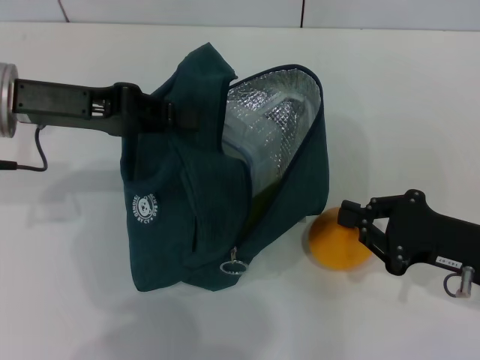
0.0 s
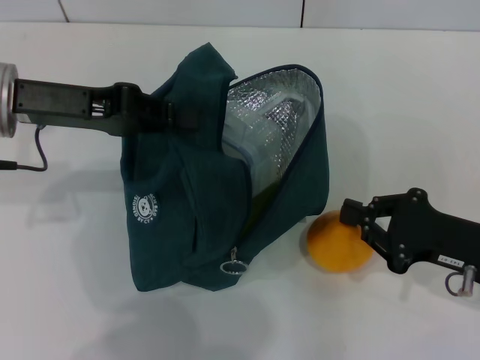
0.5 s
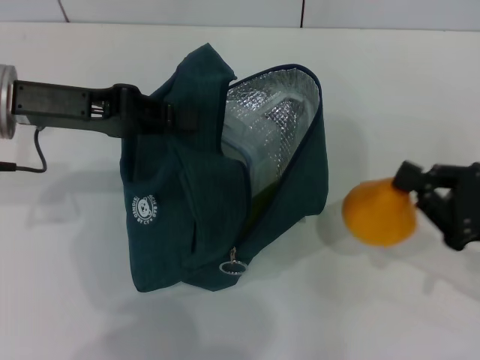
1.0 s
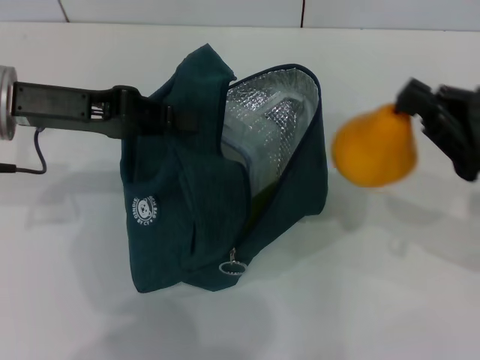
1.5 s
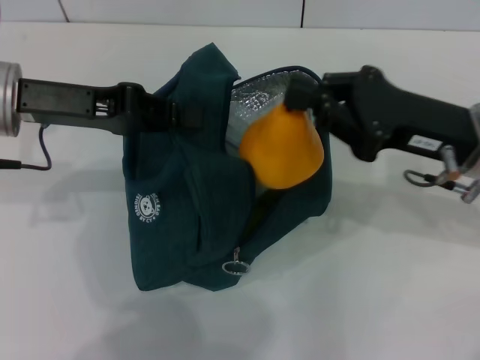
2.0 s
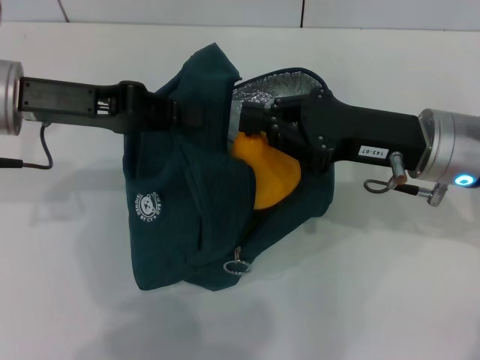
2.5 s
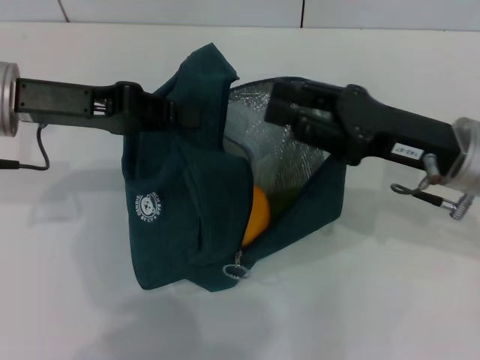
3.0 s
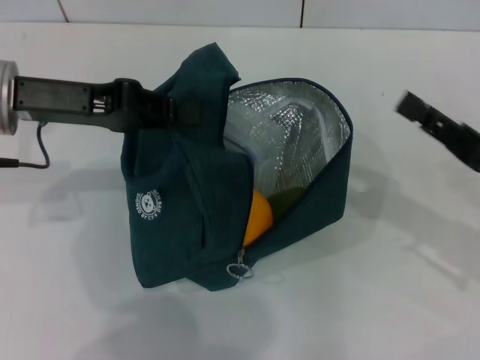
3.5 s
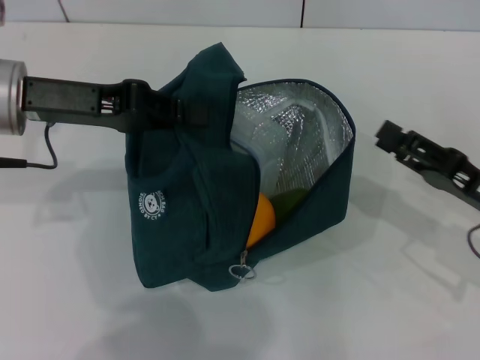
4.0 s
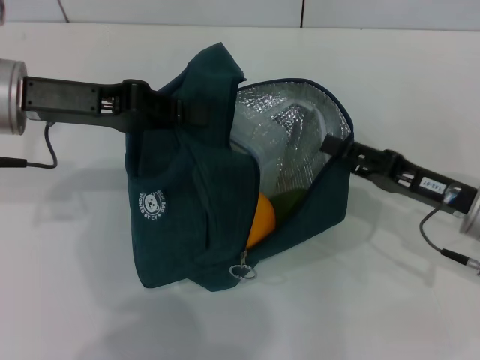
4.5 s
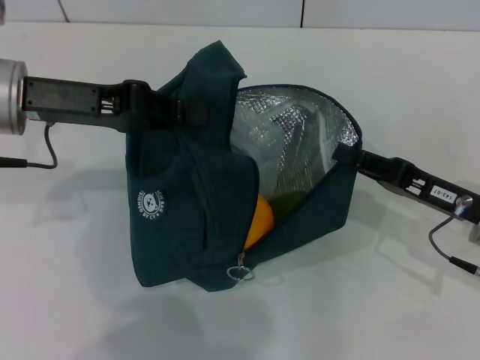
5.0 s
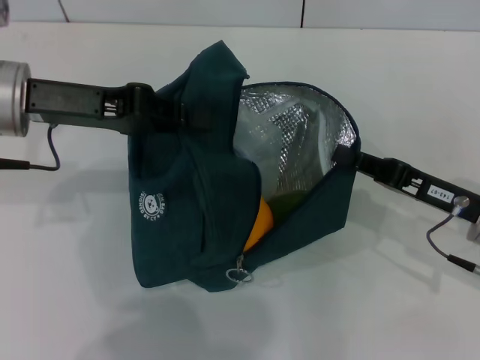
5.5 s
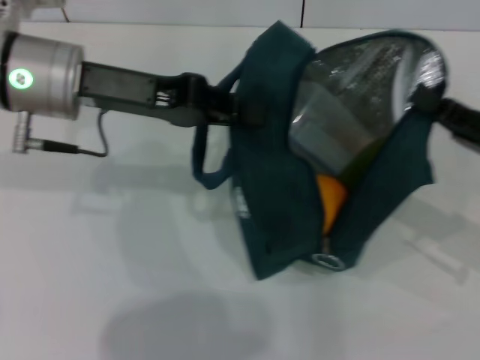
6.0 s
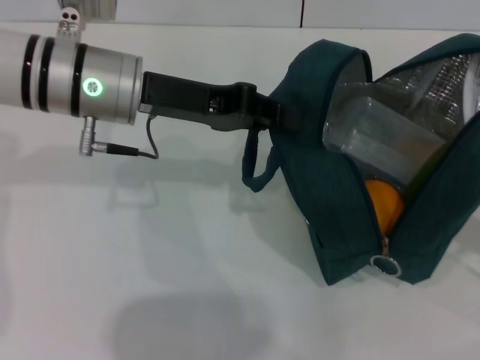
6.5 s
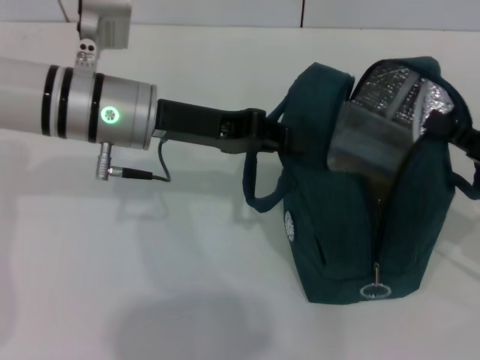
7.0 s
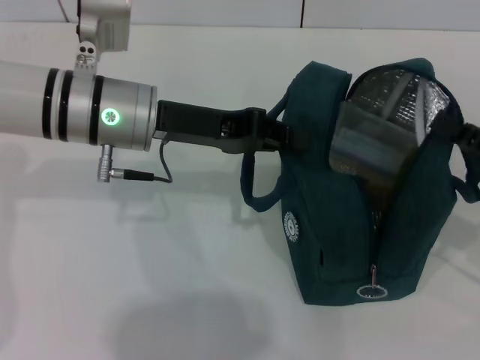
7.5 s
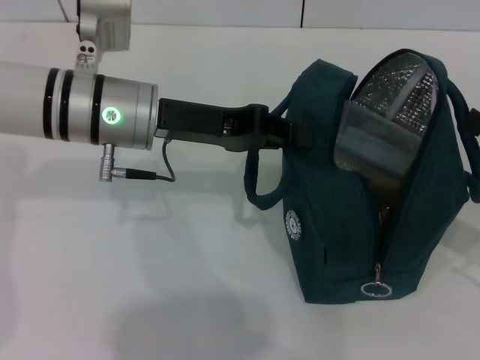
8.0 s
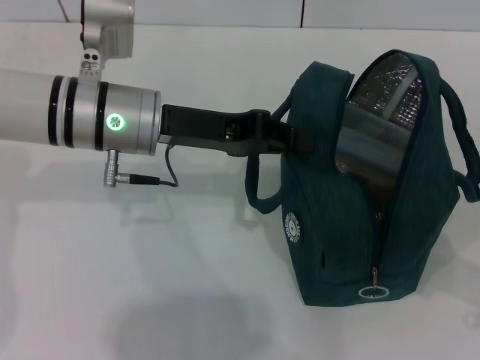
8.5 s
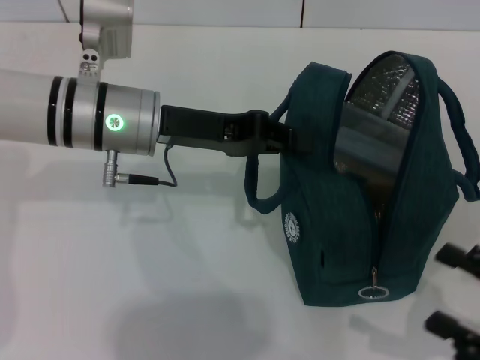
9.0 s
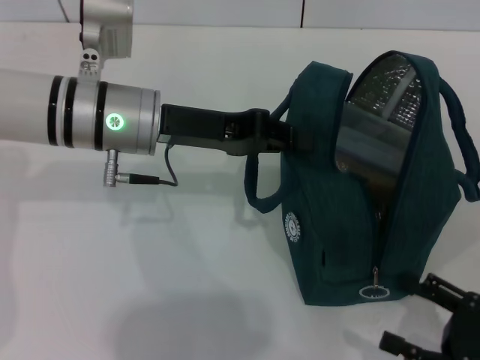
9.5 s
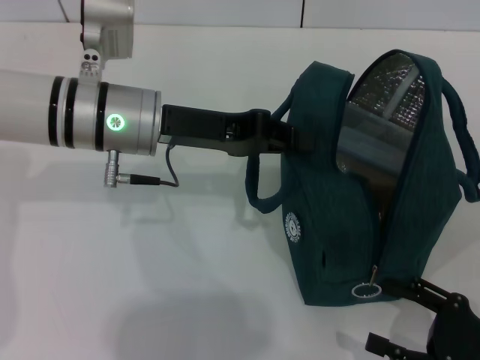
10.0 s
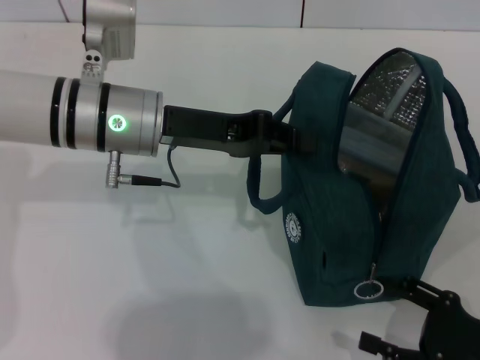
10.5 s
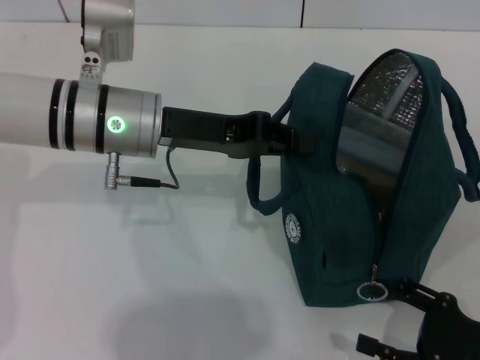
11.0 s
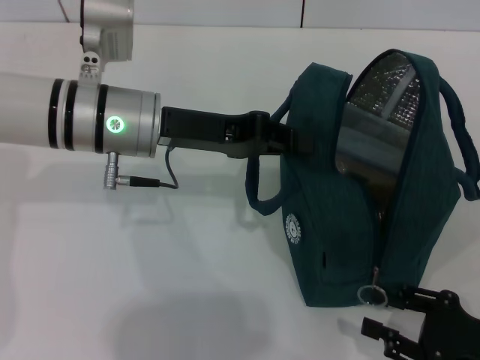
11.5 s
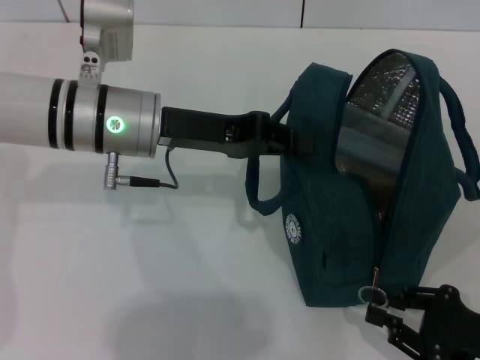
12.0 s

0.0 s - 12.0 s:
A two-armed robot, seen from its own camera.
Step, 3.5 s - 7.5 s: Hold the lunch bag with your right hand.
0.0 s - 2.0 s: The right gripper moves upward, forward and to the left, some 10 cm.
2.0 s - 4.0 s: The right gripper moves downward and to the right, about 10 cm, and opens.
4.0 s - 6.0 s: The right gripper closes up.
6.0 s - 8.0 s: The right gripper ends up roughly 5 cm from where it was, and opens up. The left gripper changes place by about 5 cm.
8.0 s - 10.0 s: The right gripper heads downward and backward, covering roughly 10 cm, and opens its fingers.
10.0 s - 12.0 s: The right gripper closes up.

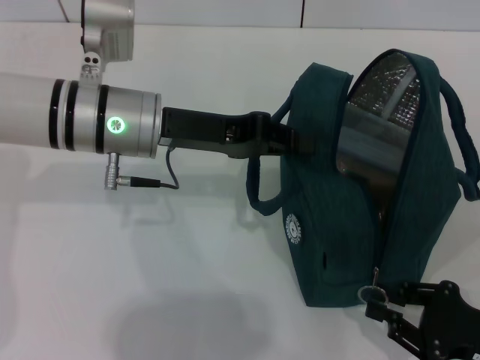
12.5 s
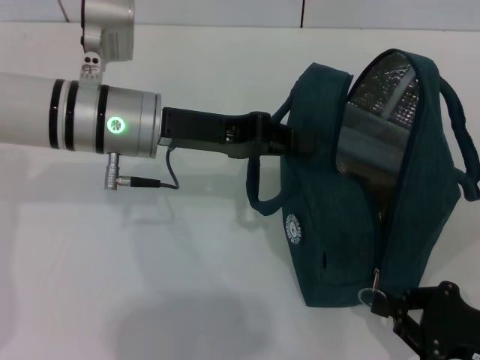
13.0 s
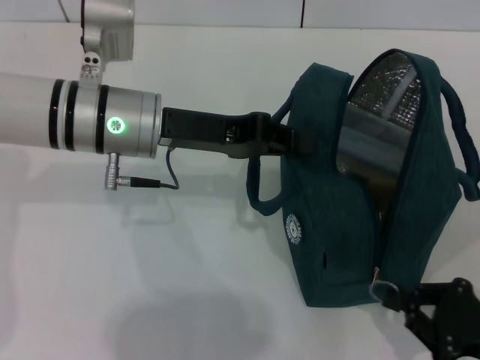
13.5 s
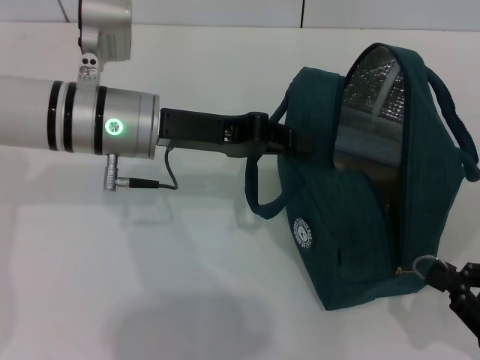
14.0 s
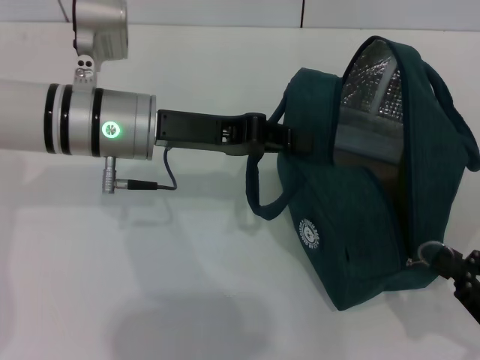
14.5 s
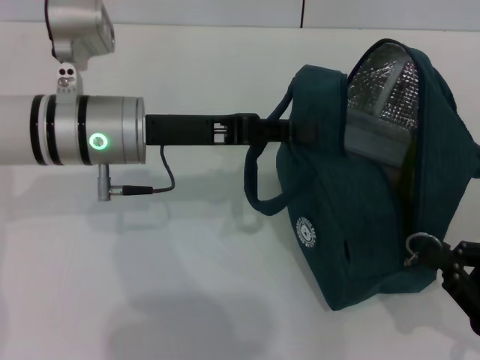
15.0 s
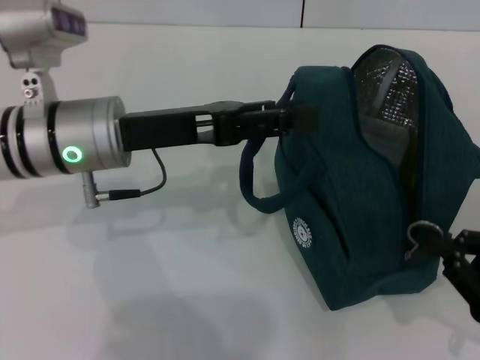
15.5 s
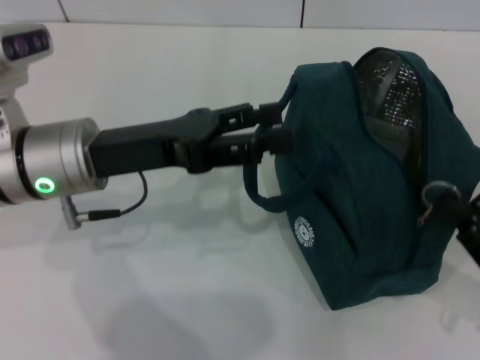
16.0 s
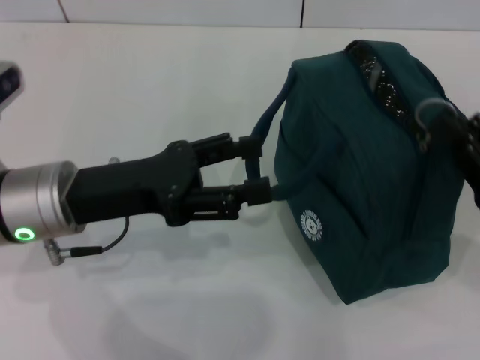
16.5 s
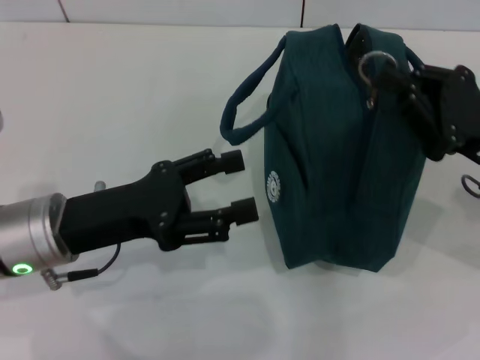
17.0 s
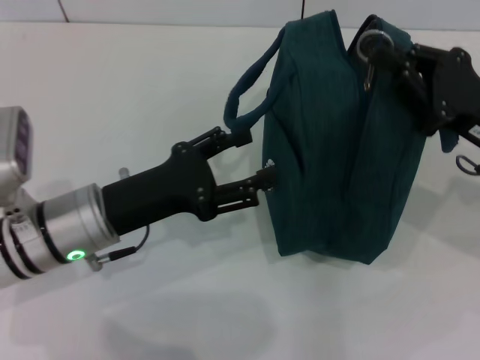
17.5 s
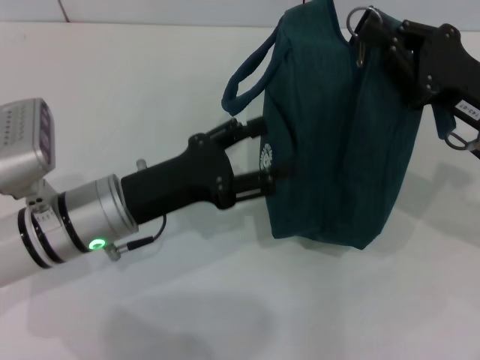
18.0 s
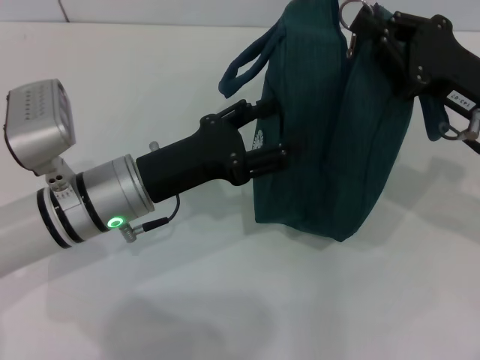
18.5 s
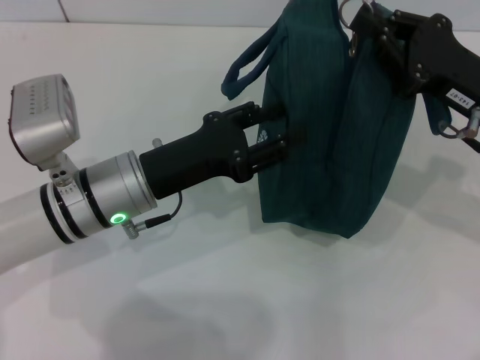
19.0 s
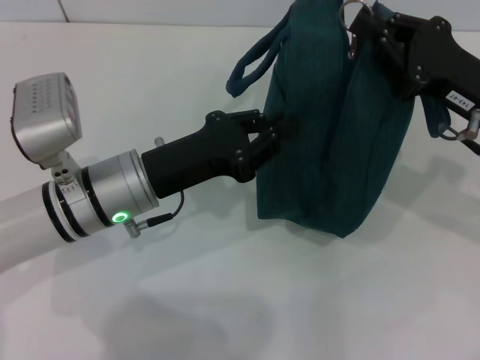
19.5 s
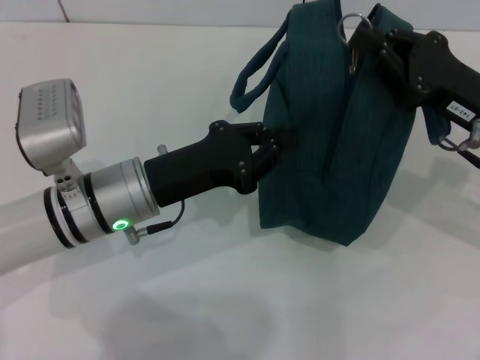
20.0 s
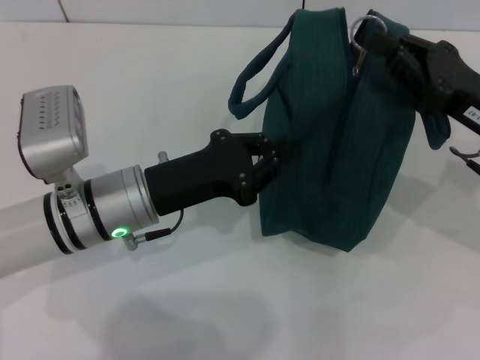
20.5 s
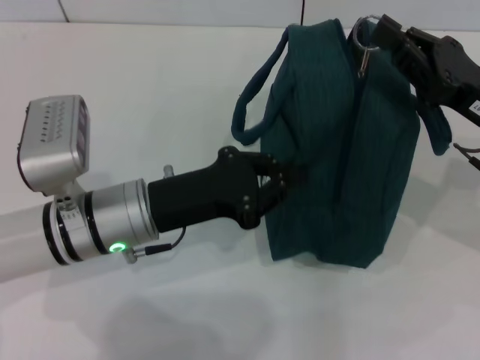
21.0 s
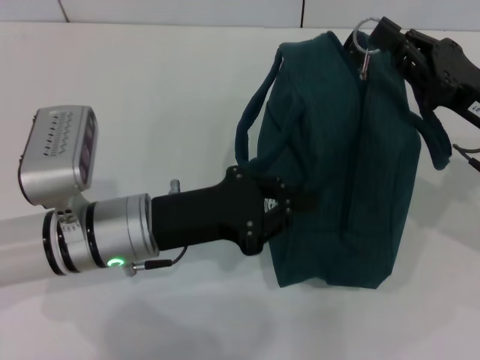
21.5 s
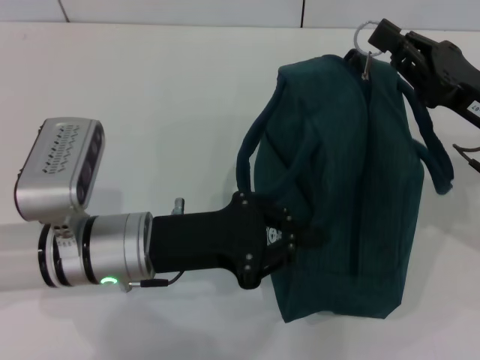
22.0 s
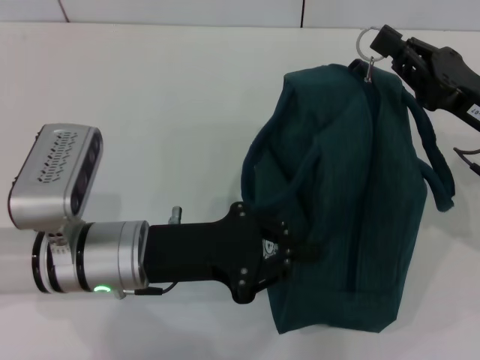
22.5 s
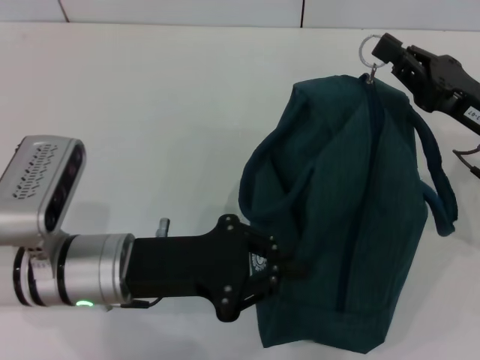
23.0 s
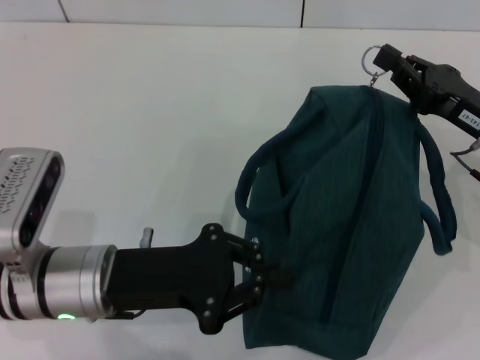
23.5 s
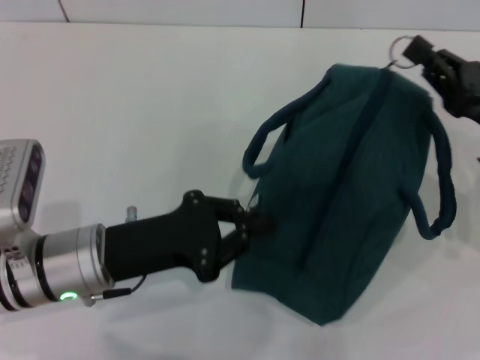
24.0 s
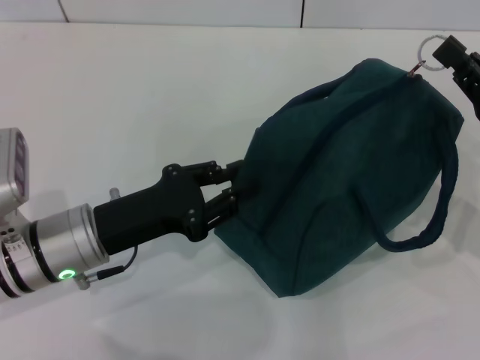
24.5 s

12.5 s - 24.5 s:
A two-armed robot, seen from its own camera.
Step, 12.5 s - 15.5 s: Hold the lunch bag with your left hand.
12.5 s - 14.5 s: The grippers move only a little.
14.5 s - 16.5 s: The left gripper travels backward and to the left by about 10 cm, and opens, while the right gripper goes some 10 cm forward and upward.
16.5 s - 18.5 s: The left gripper changes place by about 5 cm. Meanwhile the right gripper shifts about 10 cm forward and to the left.
18.5 s - 20.5 s: The left gripper closes its fingers.

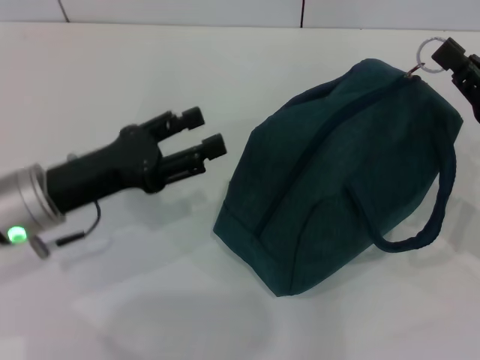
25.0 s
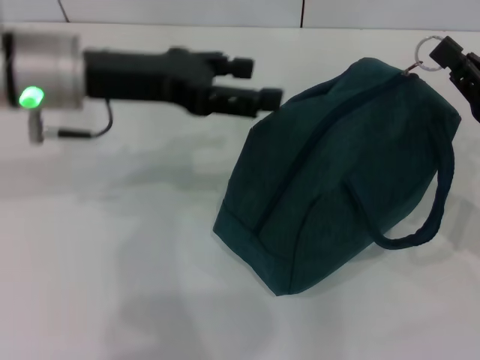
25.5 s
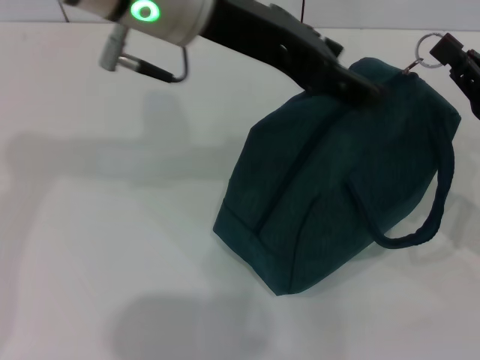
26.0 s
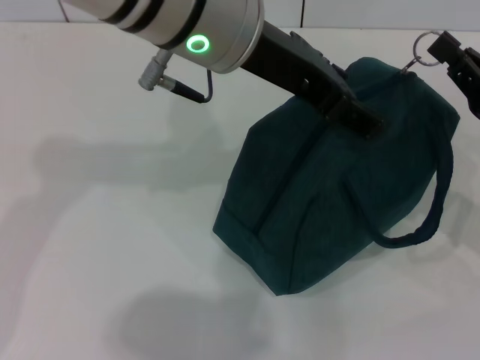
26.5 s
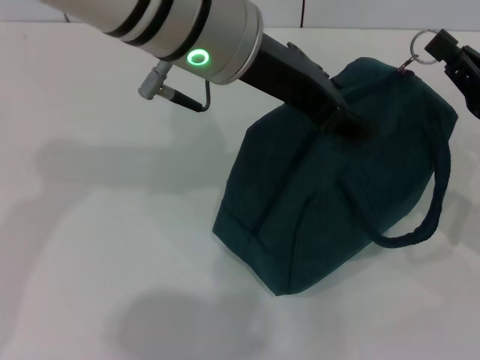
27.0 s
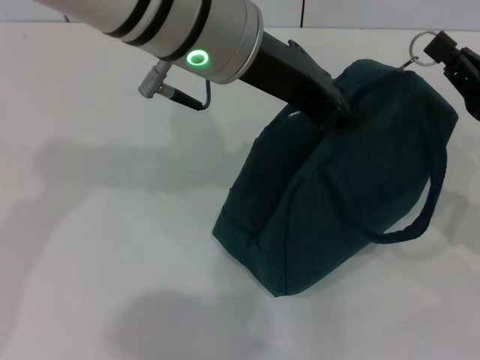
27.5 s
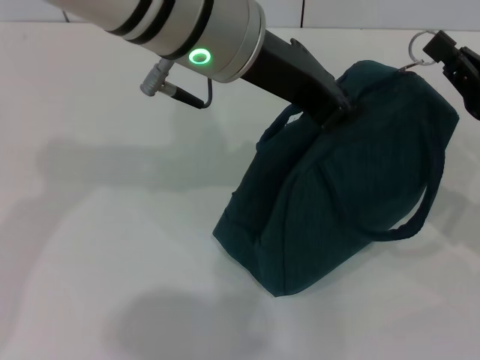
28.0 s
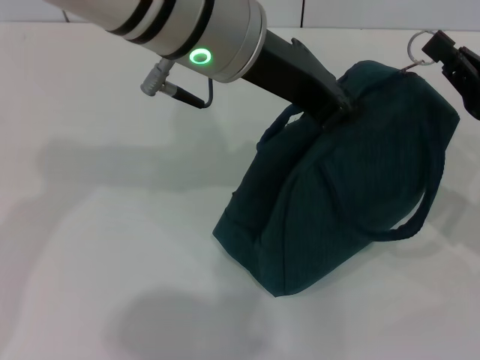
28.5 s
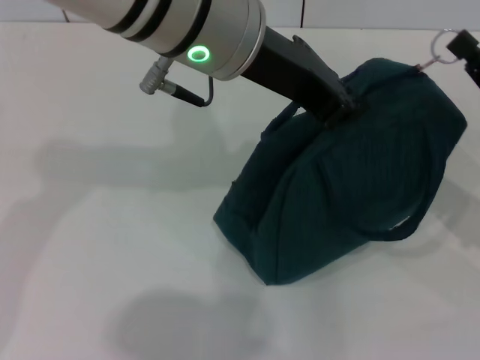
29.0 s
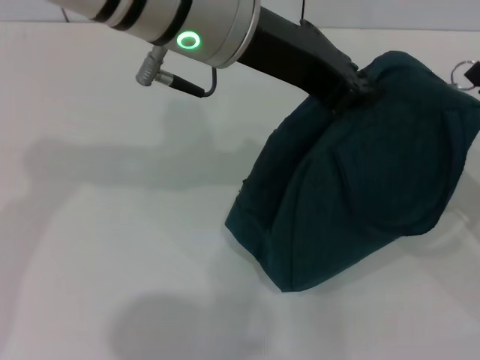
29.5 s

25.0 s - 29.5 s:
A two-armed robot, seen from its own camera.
25.0 s - 27.0 s: The left gripper travels upward and to the right by about 25 cm.
27.0 s - 29.5 s: The left gripper closes.
